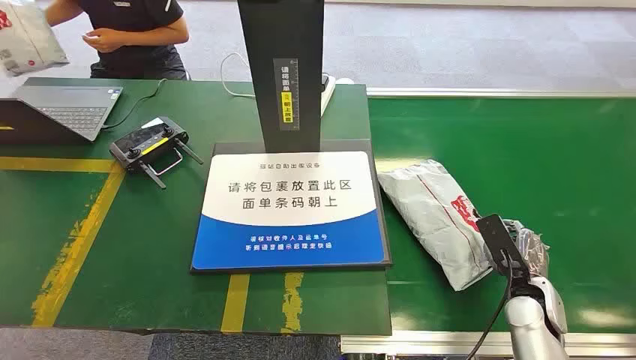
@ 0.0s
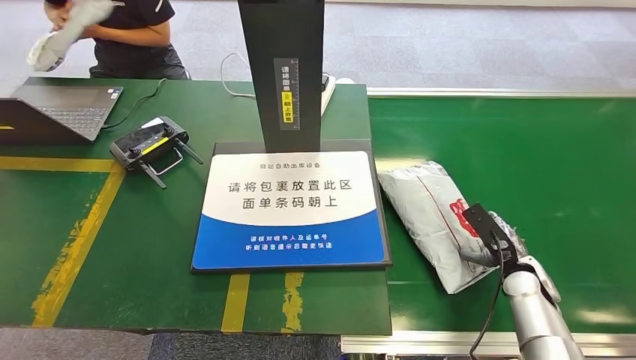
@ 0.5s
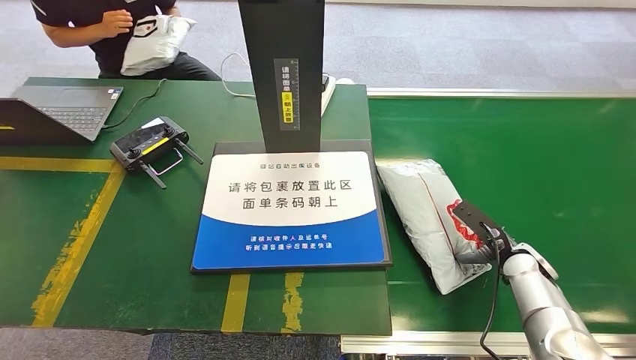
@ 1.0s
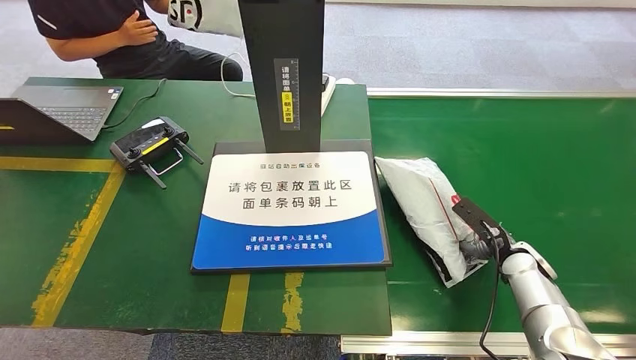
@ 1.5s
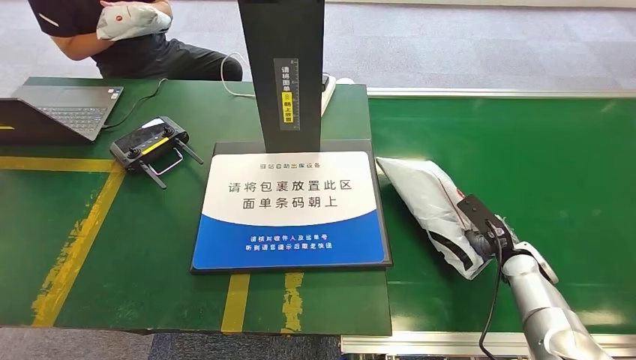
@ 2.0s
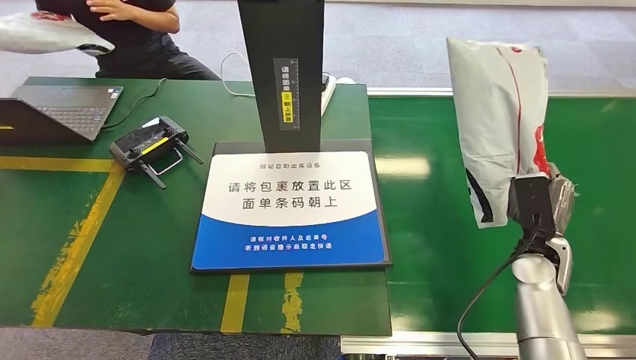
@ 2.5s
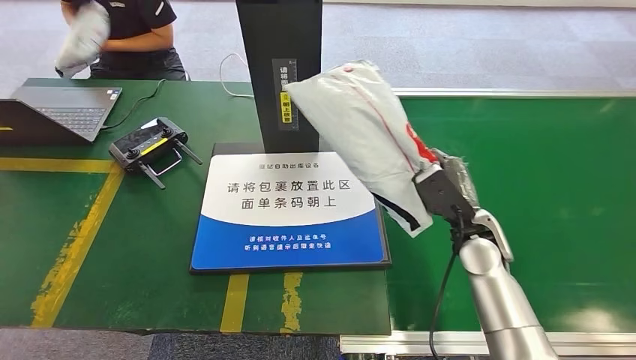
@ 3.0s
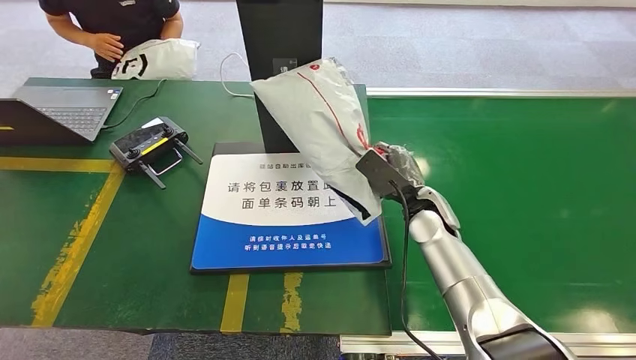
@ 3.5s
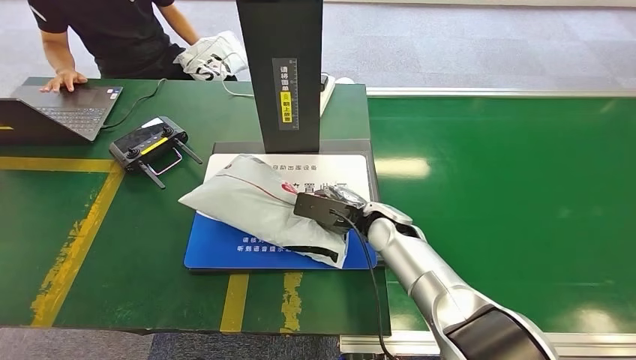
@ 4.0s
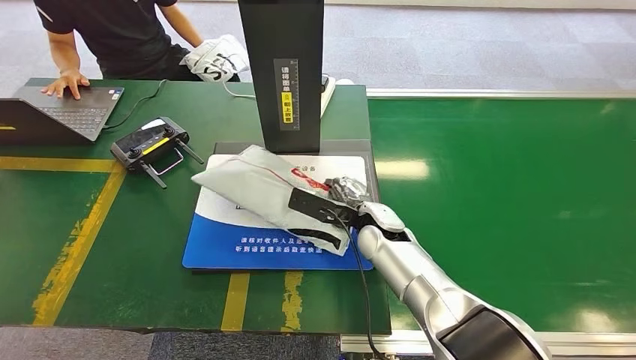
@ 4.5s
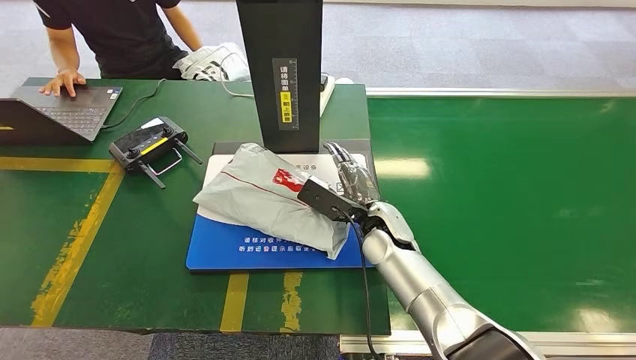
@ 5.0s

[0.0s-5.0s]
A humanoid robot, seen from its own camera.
Step, 0.0s to 2.5s: Pick up the package from the conveyor belt.
Step, 3.0s to 5.0s: Place the package onto the inbound machine.
